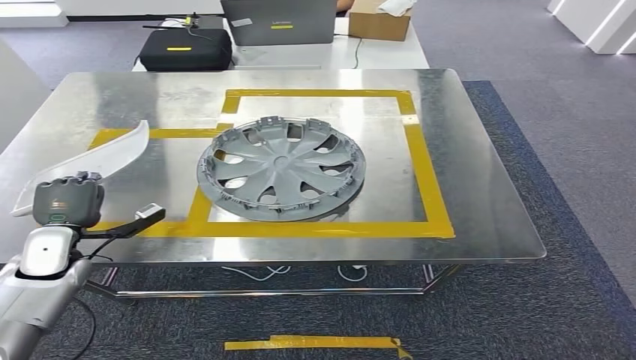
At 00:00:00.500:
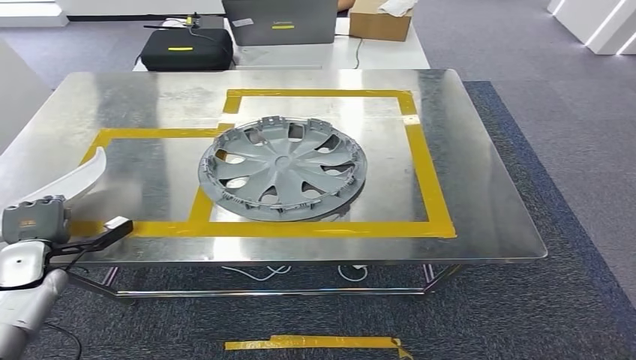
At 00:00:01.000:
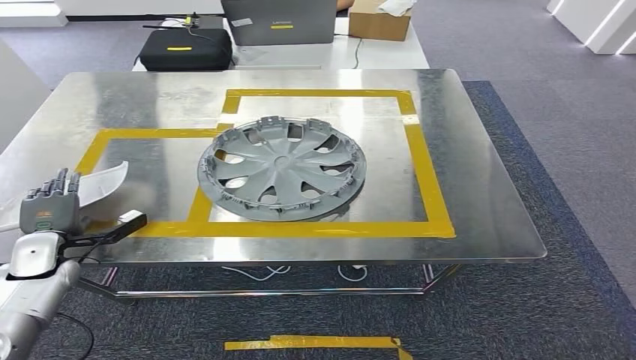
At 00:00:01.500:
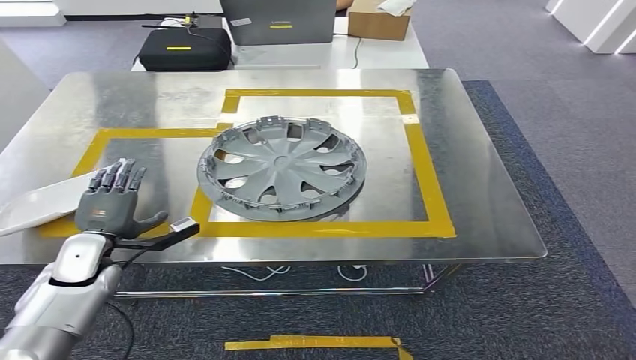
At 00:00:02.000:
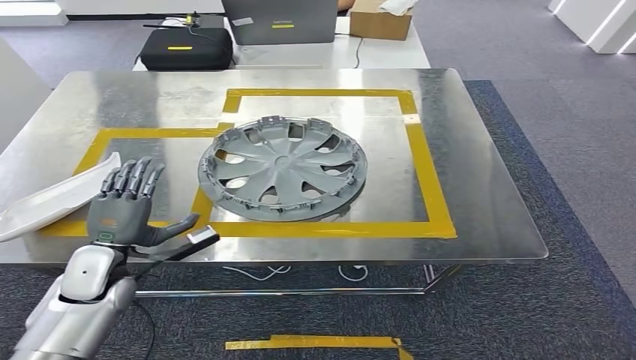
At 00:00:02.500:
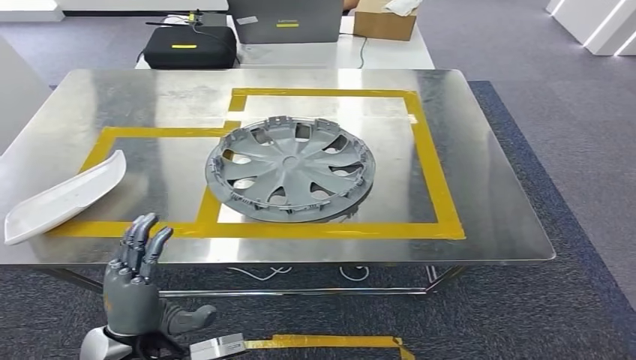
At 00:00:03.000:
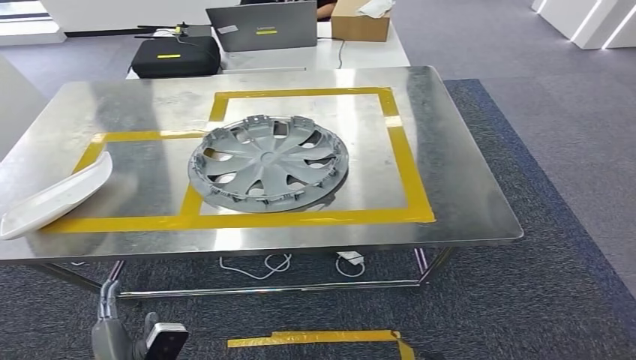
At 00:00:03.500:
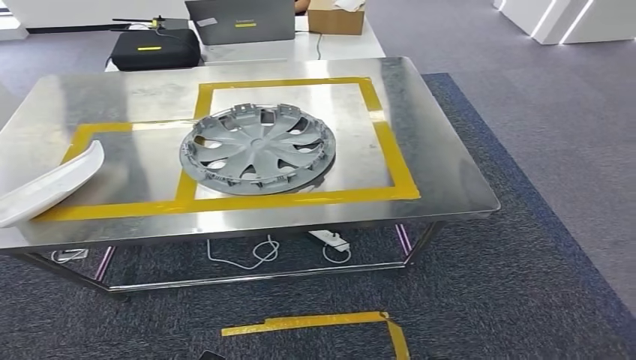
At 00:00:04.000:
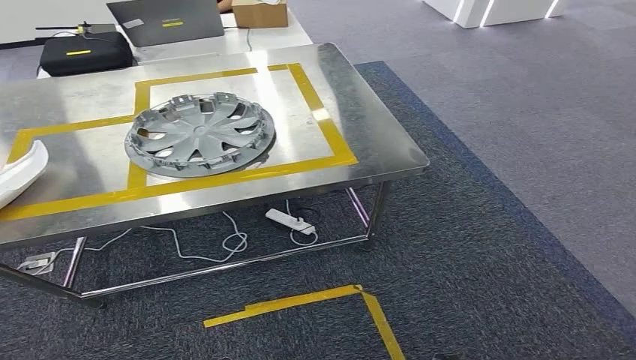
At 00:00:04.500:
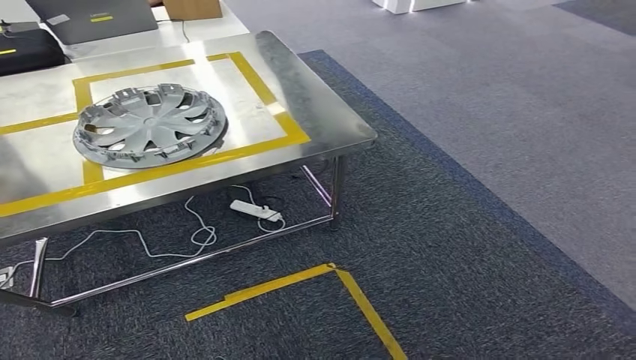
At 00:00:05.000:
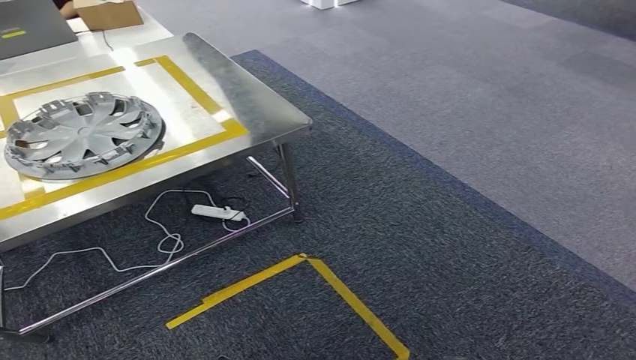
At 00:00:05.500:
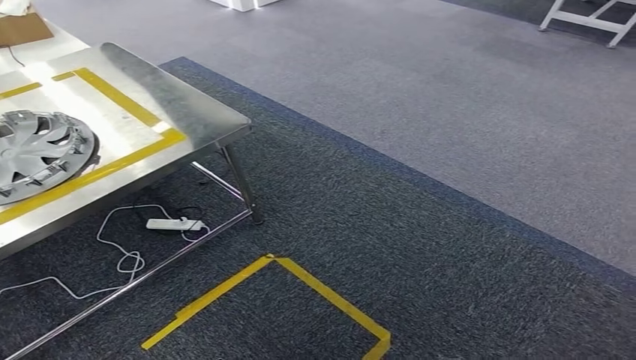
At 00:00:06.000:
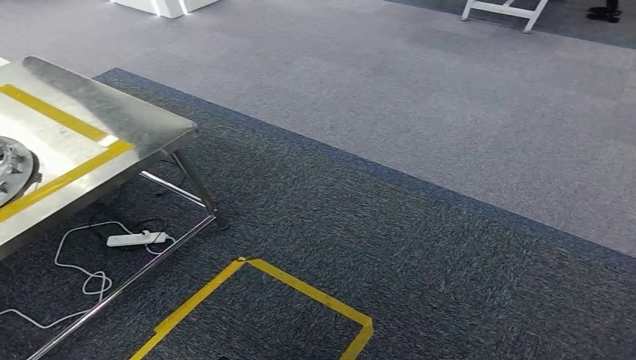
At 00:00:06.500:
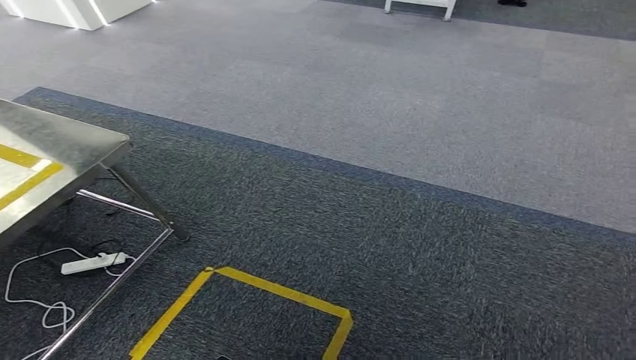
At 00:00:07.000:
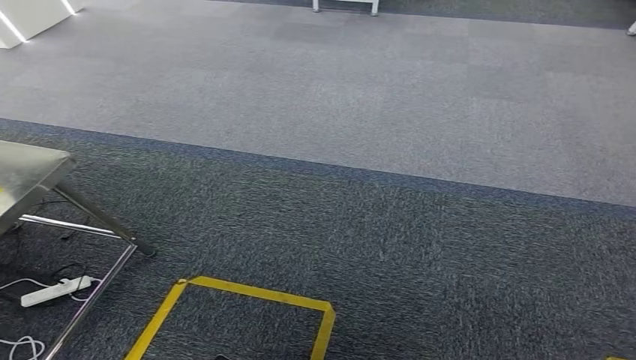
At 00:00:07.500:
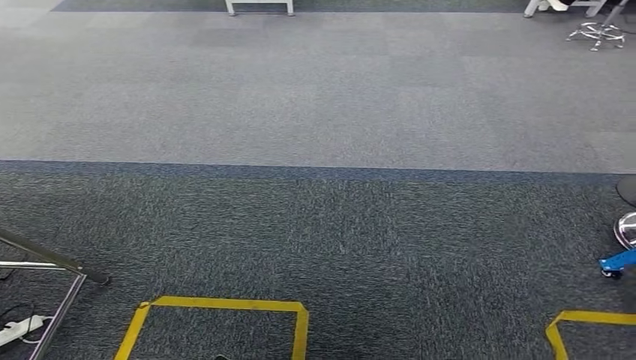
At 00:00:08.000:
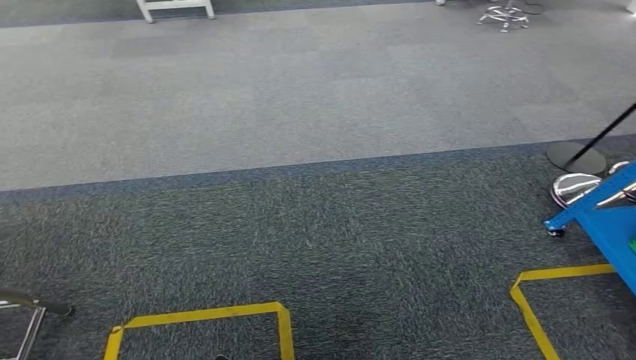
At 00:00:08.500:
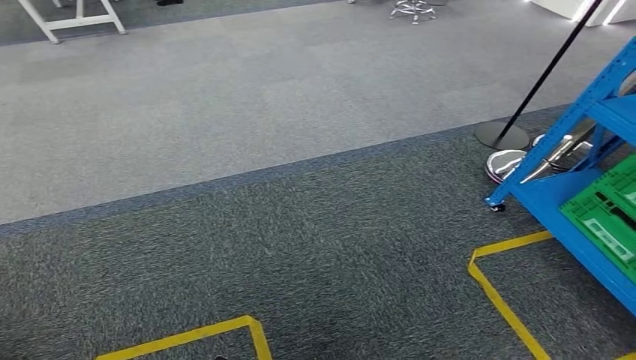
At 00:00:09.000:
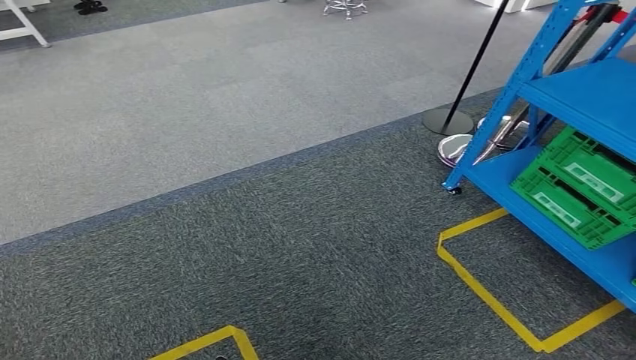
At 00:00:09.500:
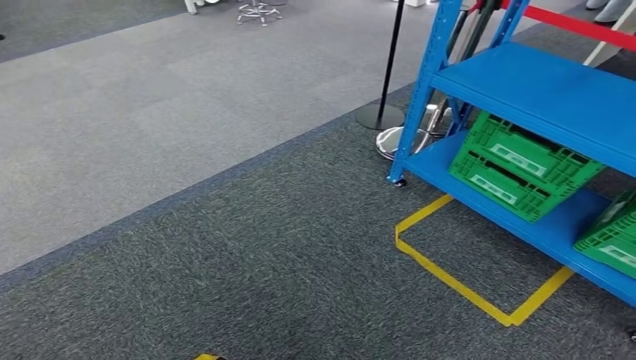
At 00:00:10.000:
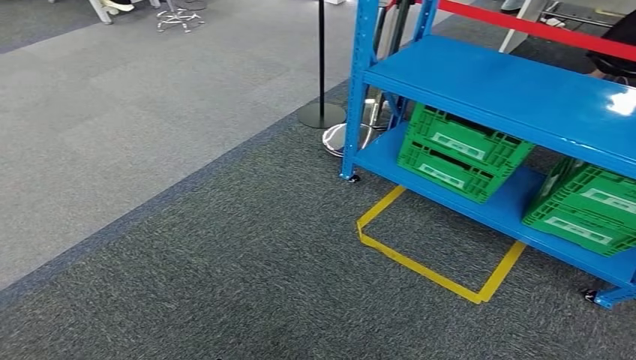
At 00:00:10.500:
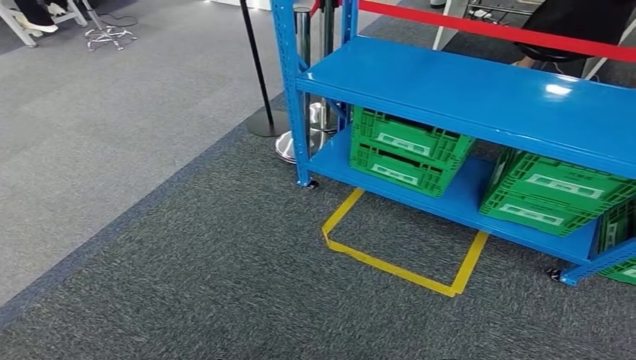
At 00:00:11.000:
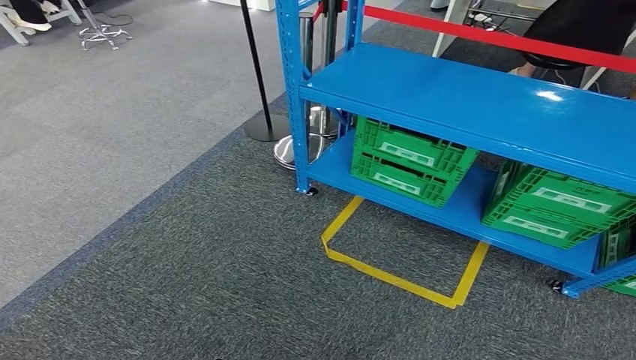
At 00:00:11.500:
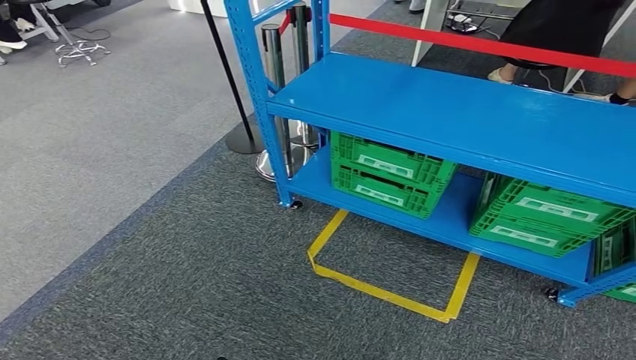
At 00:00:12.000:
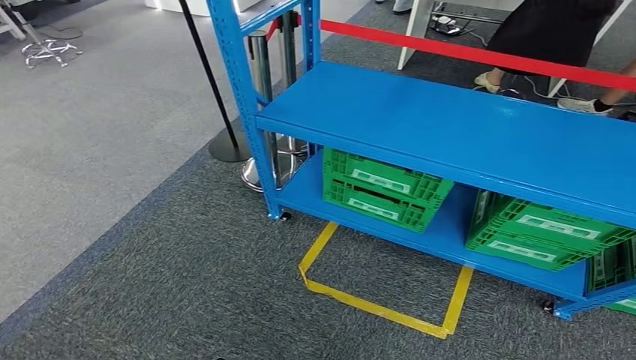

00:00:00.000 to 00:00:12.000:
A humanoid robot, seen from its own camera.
Step, 00:00:00.000 to 00:00:02.000: Insert the small component into the corresponding slot on the workbench.
00:00:00.000 to 00:00:02.000: The left hand travels to the right by approximately 5 cm.

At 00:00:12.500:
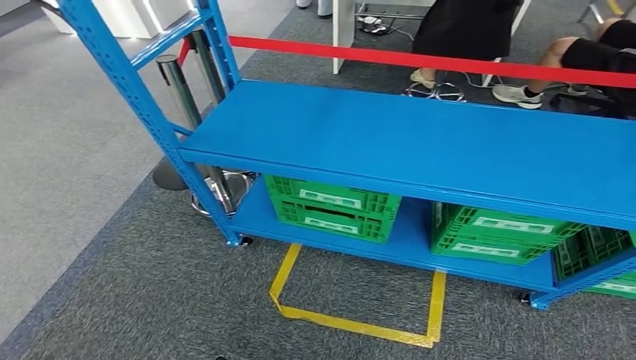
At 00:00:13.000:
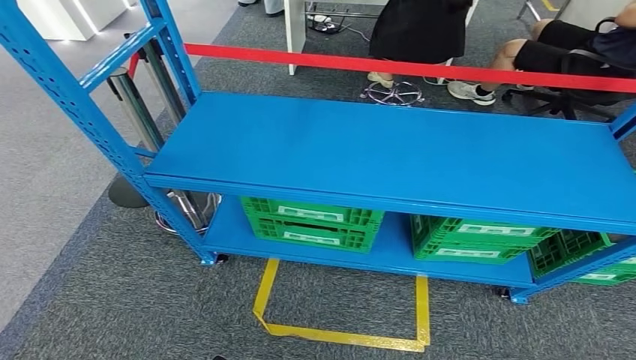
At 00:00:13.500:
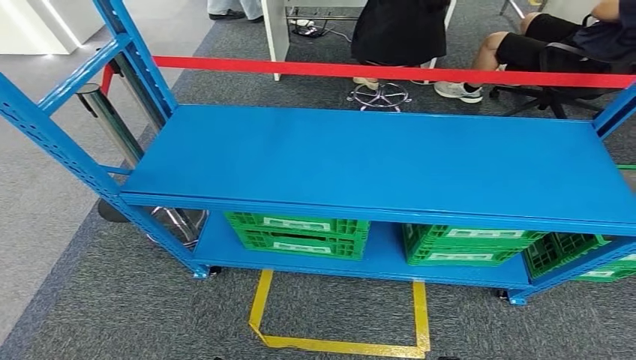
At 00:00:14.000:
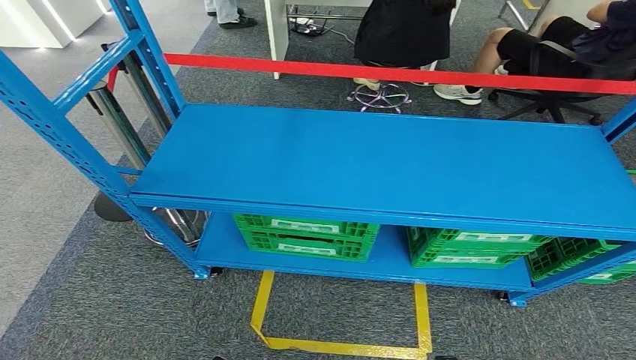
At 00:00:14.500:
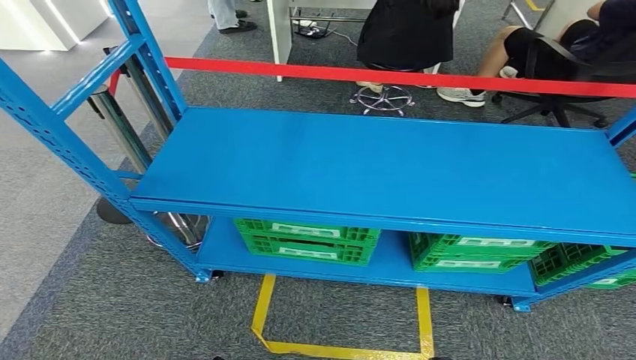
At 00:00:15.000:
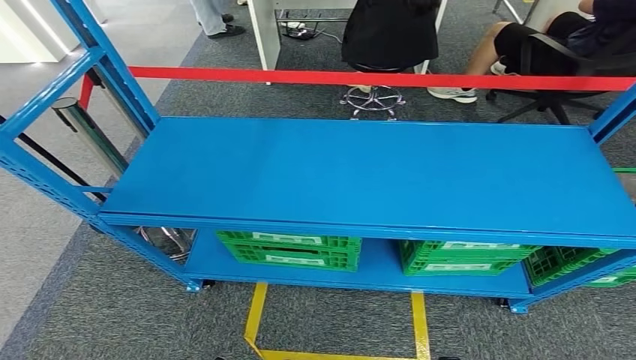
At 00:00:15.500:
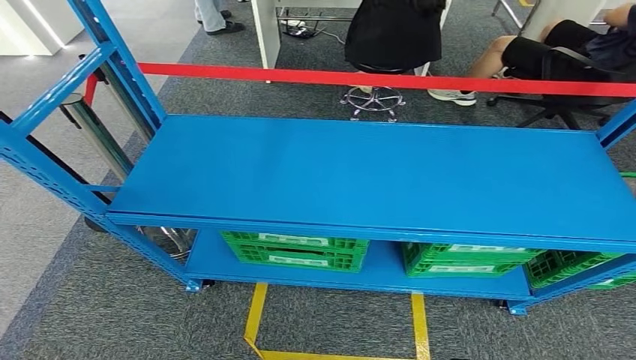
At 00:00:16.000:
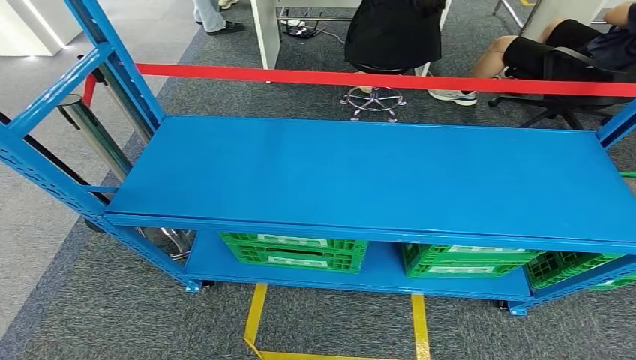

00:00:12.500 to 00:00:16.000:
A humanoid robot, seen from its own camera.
Step, 00:00:12.500 to 00:00:16.000: Move to the initial position at the workbench.
